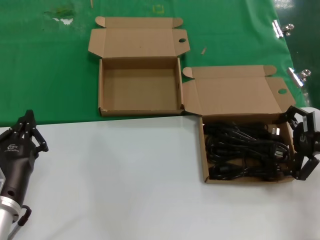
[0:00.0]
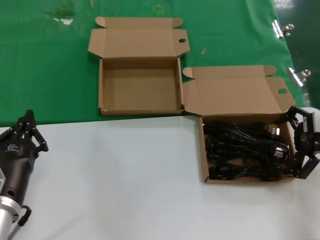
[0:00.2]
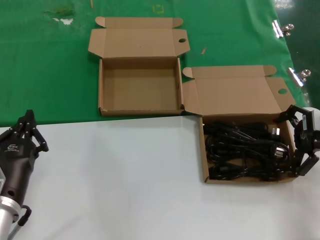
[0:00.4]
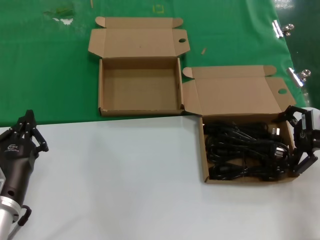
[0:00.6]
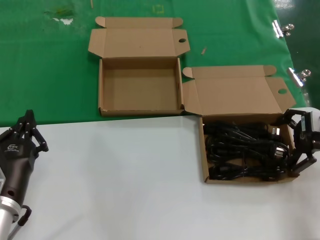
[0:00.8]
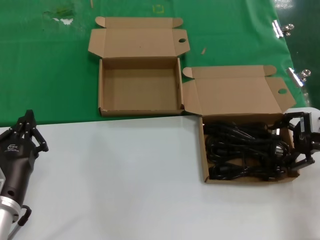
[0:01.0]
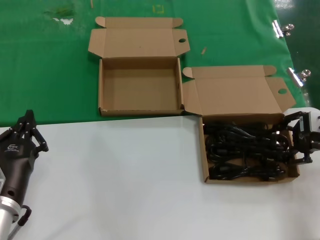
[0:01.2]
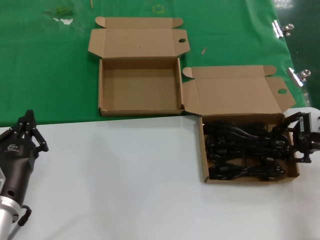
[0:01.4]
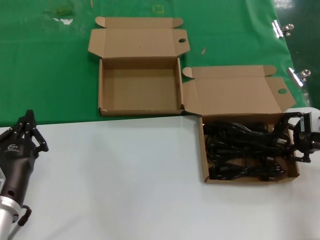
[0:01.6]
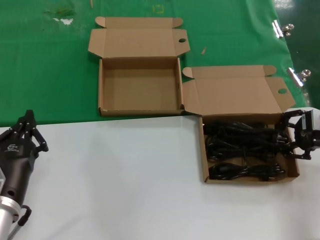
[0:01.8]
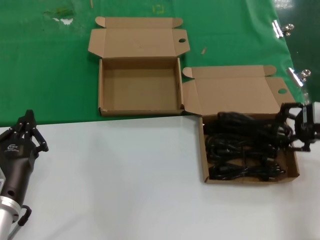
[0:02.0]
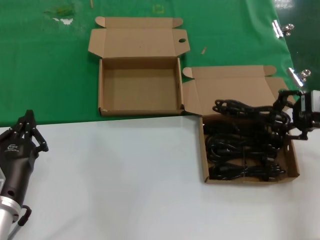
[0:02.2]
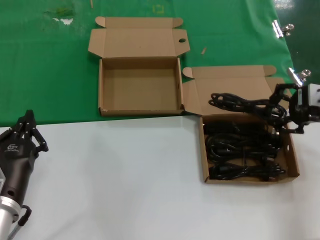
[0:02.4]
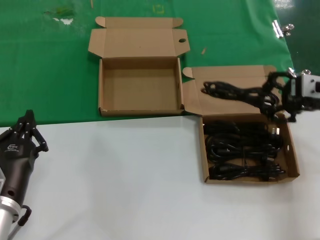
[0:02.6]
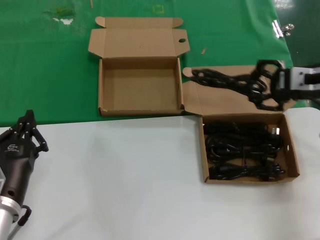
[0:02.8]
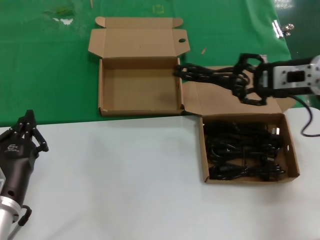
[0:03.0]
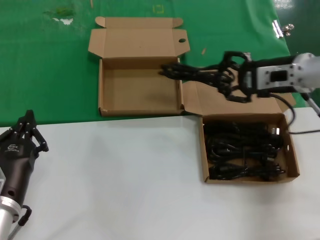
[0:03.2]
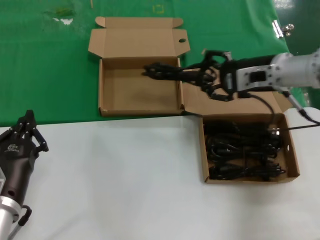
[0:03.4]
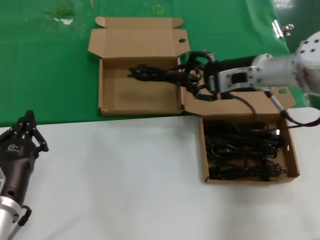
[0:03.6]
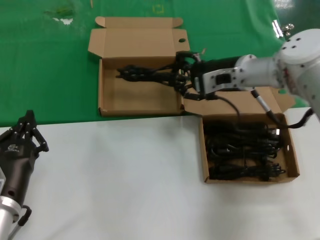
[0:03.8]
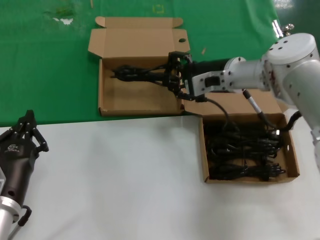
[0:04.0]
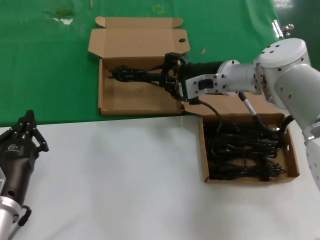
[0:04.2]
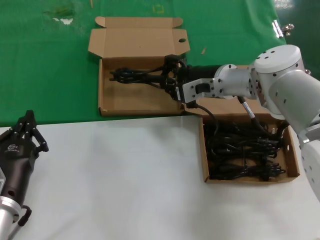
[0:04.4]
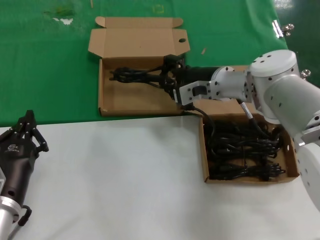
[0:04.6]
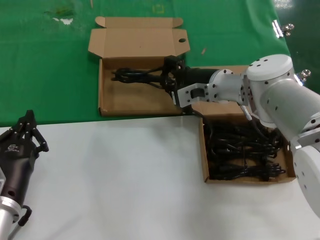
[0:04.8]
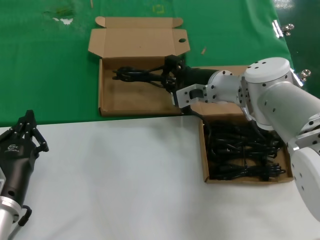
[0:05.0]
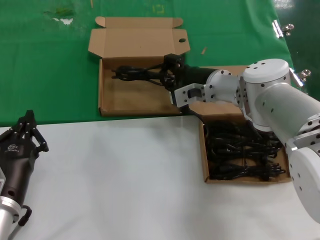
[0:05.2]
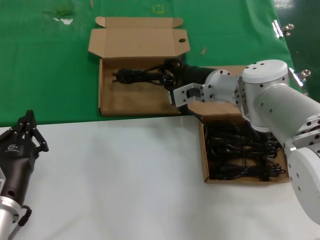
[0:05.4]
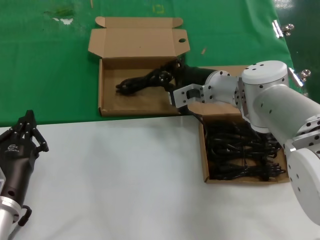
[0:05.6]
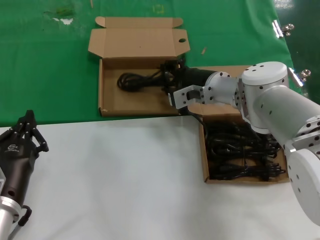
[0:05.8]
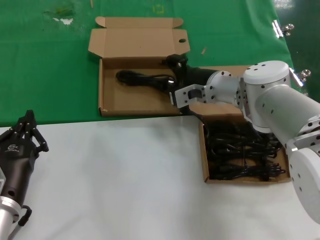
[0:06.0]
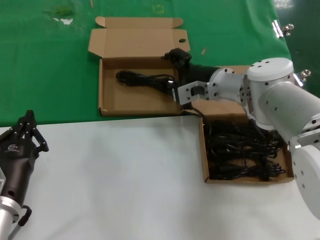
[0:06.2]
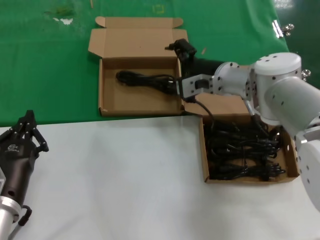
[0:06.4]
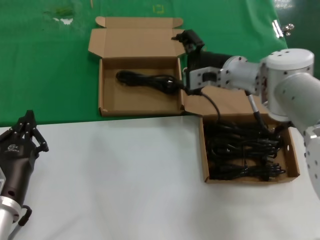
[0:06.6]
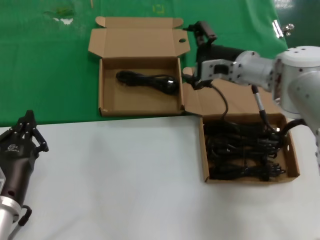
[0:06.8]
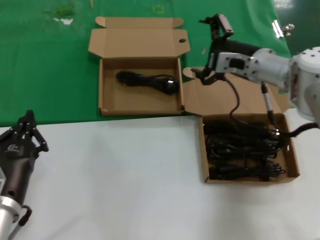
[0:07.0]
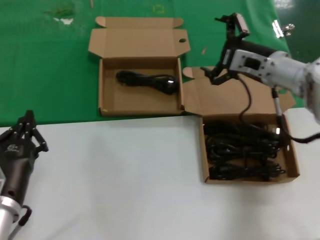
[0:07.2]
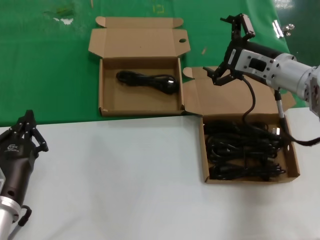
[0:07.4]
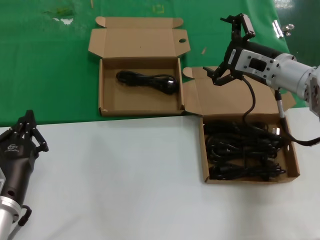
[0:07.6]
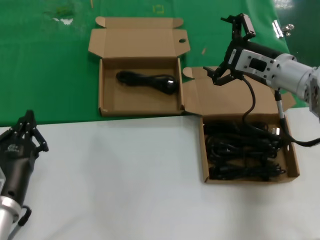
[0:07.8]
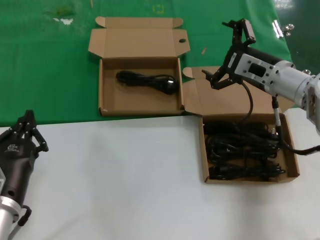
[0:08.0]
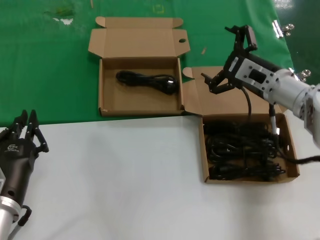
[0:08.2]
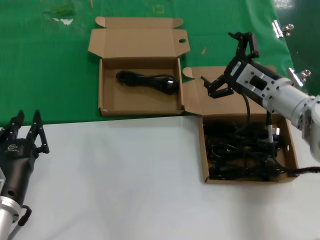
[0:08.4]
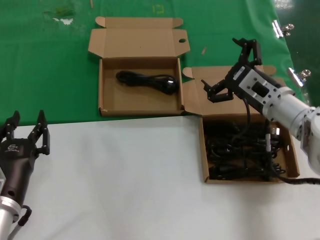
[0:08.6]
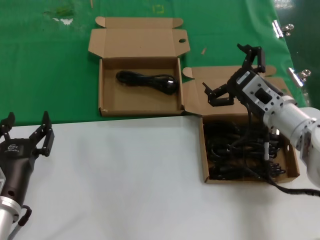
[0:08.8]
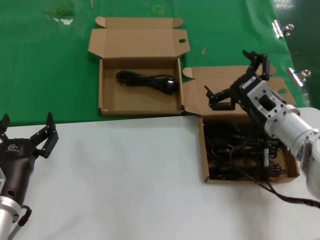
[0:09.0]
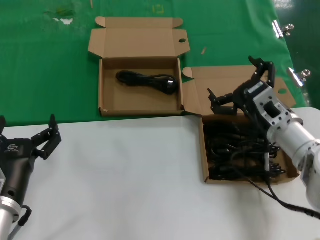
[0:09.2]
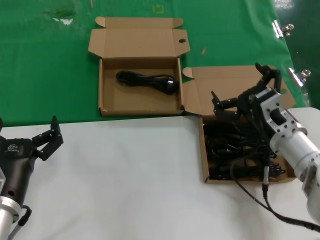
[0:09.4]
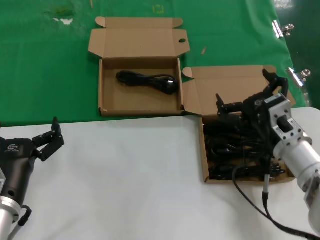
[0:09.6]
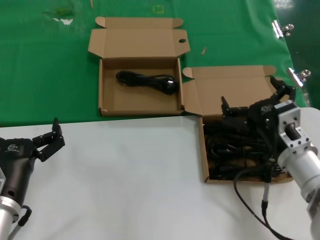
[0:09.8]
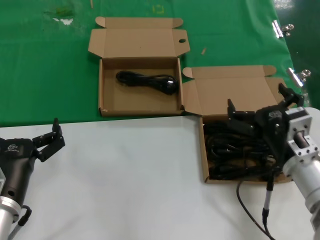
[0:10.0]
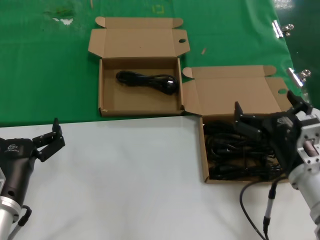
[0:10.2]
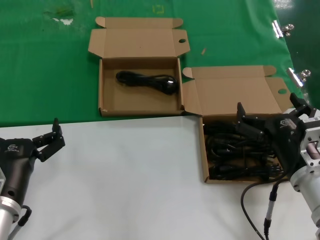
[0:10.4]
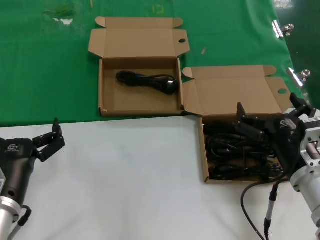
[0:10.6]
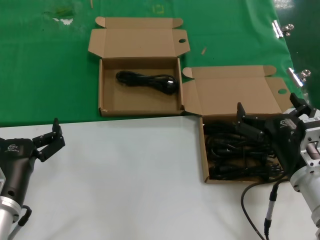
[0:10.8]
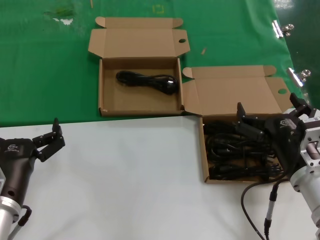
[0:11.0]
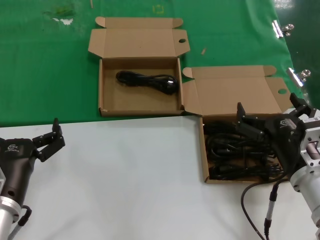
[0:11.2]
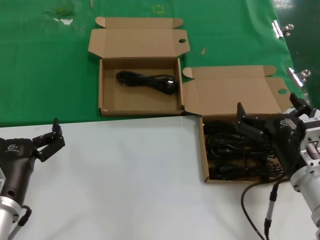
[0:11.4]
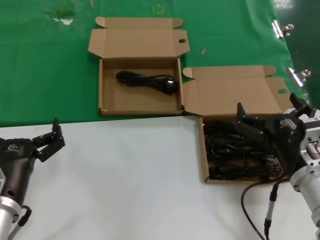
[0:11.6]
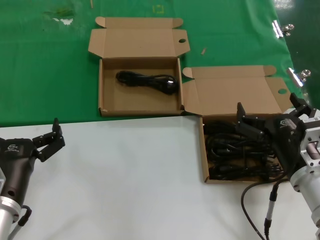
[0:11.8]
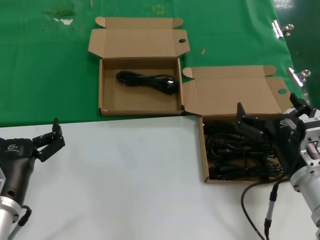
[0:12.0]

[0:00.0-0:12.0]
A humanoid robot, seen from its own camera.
Task of the whole recording: take the parts from the box containing them and put them into an empty box.
Step, 0:01.6 to 0:06.0: Place the data cable in the another box.
0:00.0 to 0:01.6: There are only small adjustments of the hands.
0:01.6 to 0:03.0: The right hand is displaced to the left, upward and forward by approximately 10 cm.
0:03.0 to 0:04.4: The right hand heads to the left, forward and downward, covering approximately 20 cm.
0:04.4 to 0:06.0: The hands stay close to where they were, moving slightly.
0:06.0 to 0:07.6: The right hand is displaced to the right by about 10 cm.
0:07.6 to 0:09.0: The right hand travels backward and downward by roughly 10 cm.
0:09.0 to 0:10.4: The right hand goes about 15 cm backward.
0:10.4 to 0:12.0: Both hands stay about where they are.

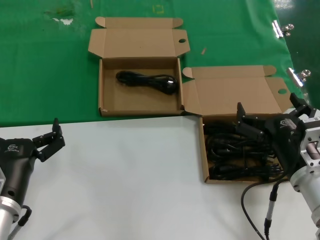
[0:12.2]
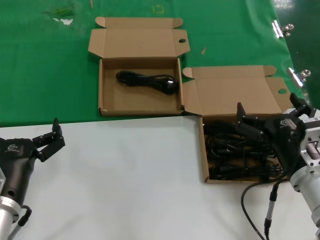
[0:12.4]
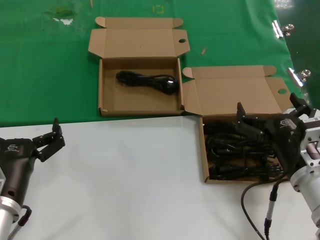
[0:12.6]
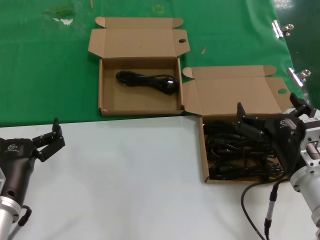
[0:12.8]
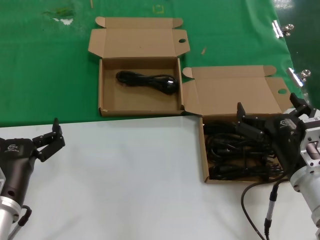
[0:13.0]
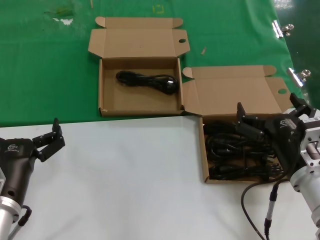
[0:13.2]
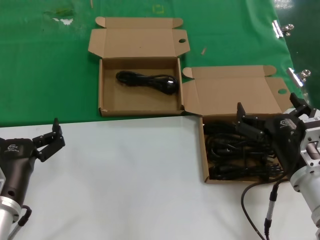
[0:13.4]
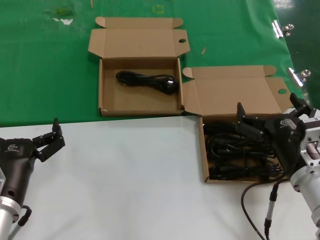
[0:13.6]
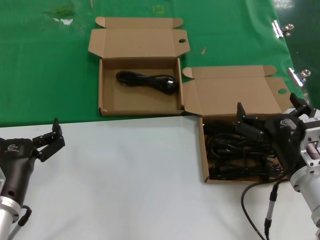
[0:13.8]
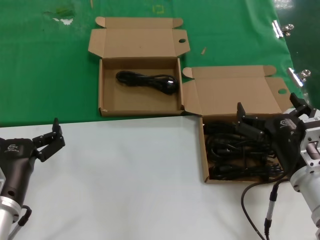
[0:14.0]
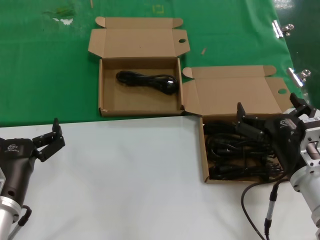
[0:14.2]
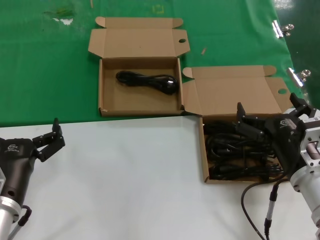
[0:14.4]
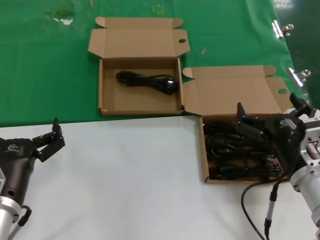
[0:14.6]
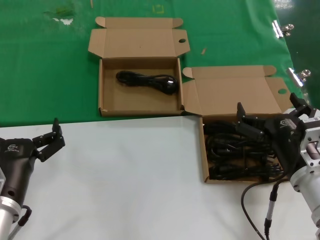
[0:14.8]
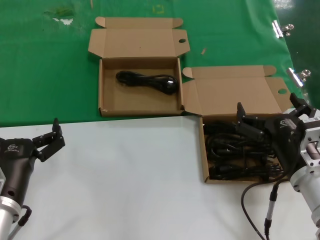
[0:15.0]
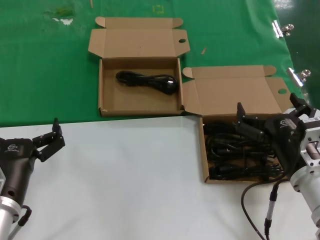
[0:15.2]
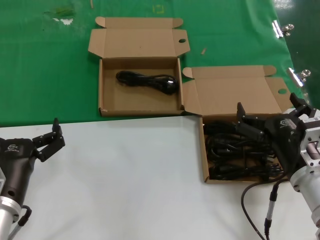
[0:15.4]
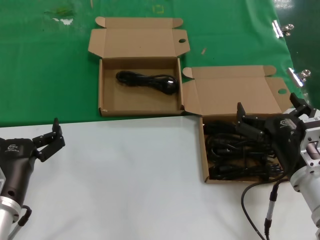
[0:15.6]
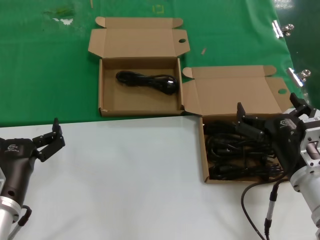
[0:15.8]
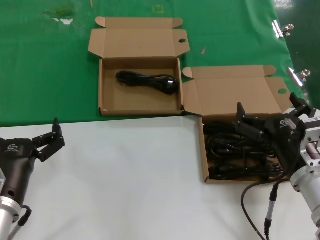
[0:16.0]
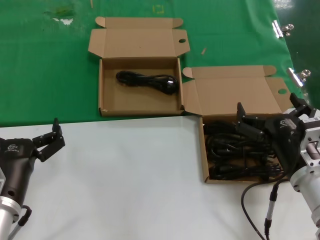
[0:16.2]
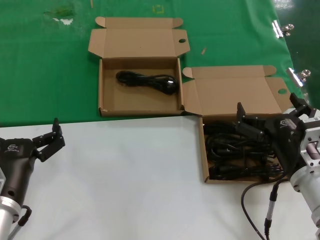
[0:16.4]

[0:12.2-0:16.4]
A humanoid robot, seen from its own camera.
Task of the whole recording: take the parts from the box containing them and put them into an empty box.
0:12.2 to 0:16.4: Both hands stay about where they are.

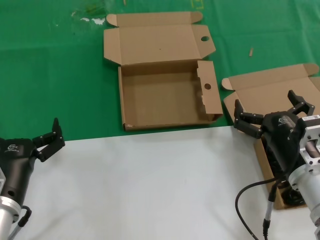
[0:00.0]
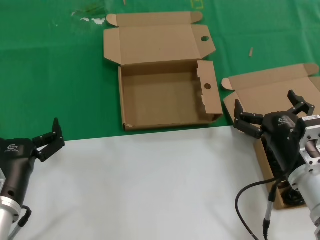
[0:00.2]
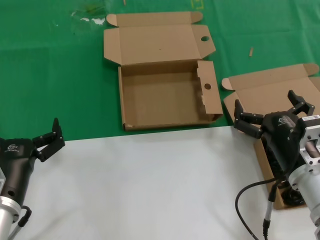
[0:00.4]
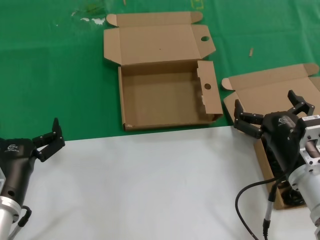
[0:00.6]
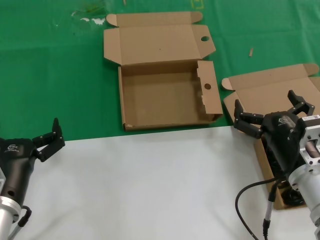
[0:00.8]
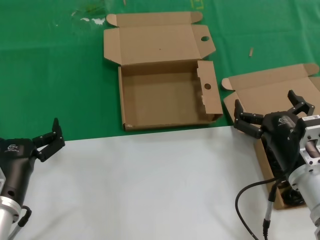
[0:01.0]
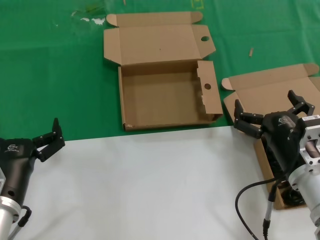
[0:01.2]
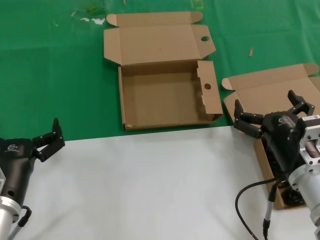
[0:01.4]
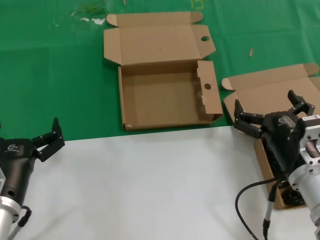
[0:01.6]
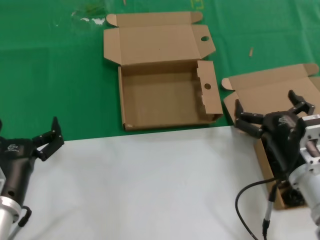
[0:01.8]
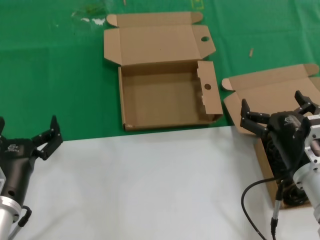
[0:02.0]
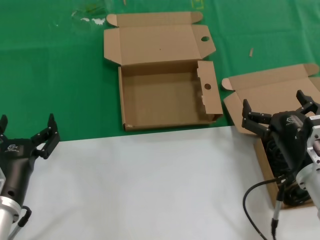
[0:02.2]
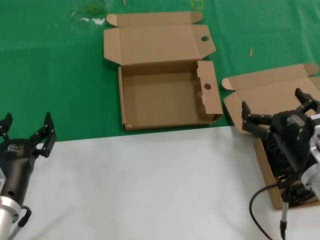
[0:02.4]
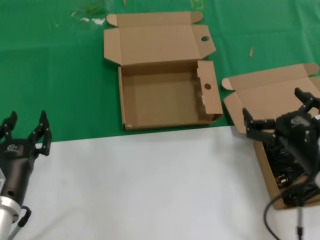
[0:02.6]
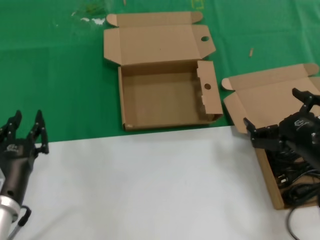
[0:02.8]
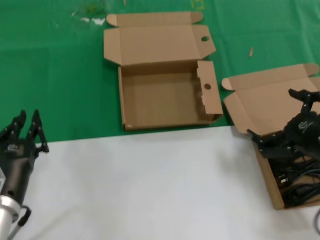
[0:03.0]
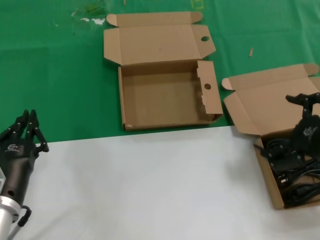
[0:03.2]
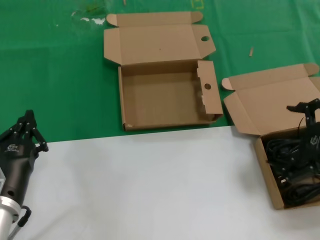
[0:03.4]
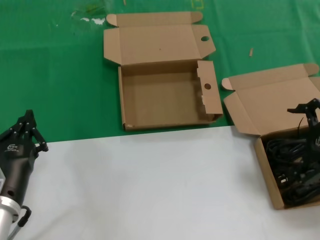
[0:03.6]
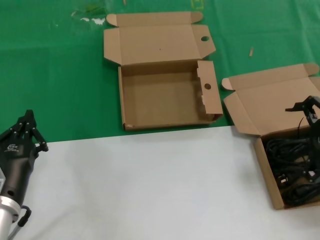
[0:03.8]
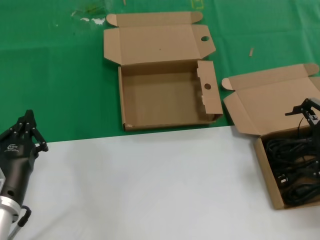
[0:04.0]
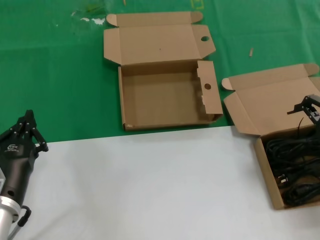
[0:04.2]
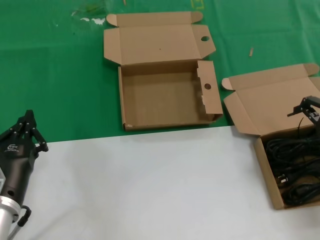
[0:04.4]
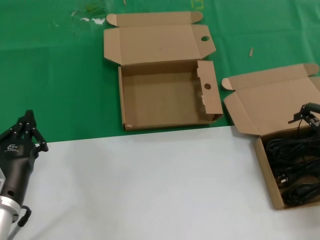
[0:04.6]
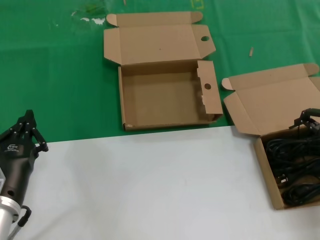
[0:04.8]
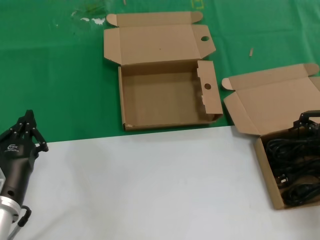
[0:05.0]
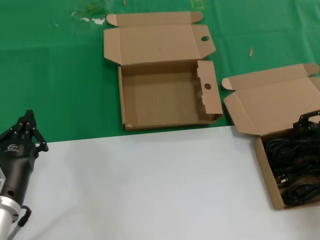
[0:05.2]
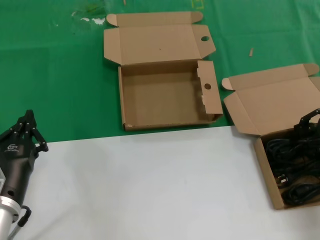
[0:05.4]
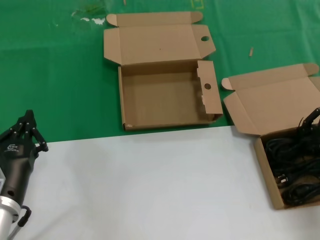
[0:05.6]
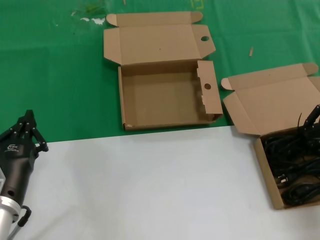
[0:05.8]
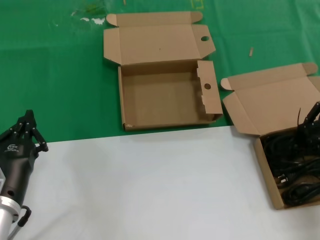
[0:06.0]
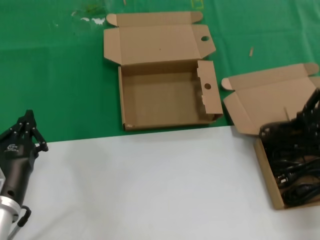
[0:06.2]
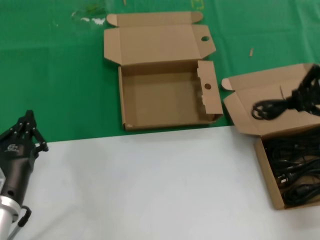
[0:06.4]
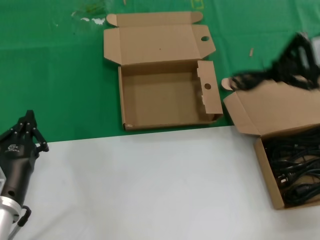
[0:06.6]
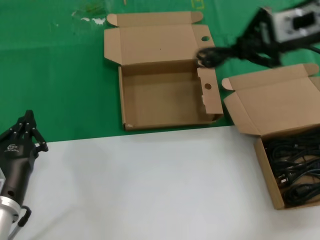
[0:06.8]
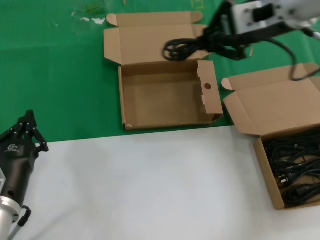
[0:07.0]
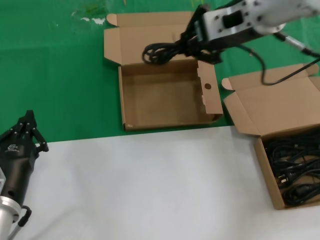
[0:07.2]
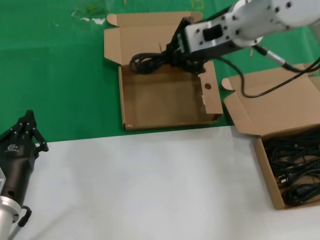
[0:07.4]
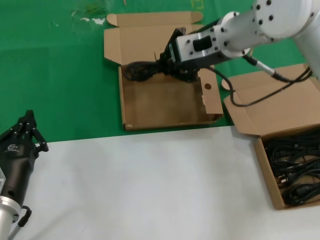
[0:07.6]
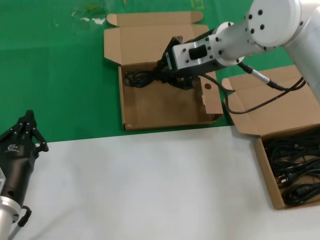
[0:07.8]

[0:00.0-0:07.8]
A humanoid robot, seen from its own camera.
Task of the whole recording: take the parts from the box containing them and put them into an empty box.
Step, 0:00.0 to 0:05.6: Grasp the data cable.
0:00.0 to 0:01.6: Both hands stay about where they are.
0:01.6 to 0:03.2: The right hand shifts roughly 15 cm upward and to the right.
0:03.2 to 0:04.6: The right hand is displaced forward and upward by approximately 10 cm.
0:04.6 to 0:06.2: There are only small adjustments of the hands.
0:06.2 to 0:07.8: The right hand heads to the left and forward, covering roughly 25 cm.
